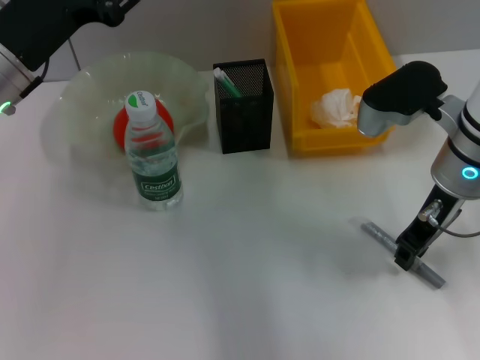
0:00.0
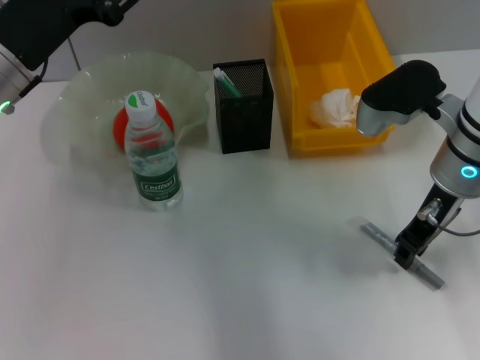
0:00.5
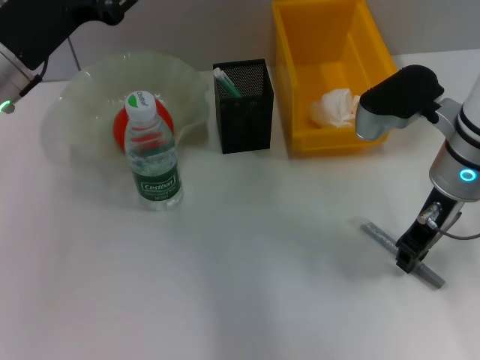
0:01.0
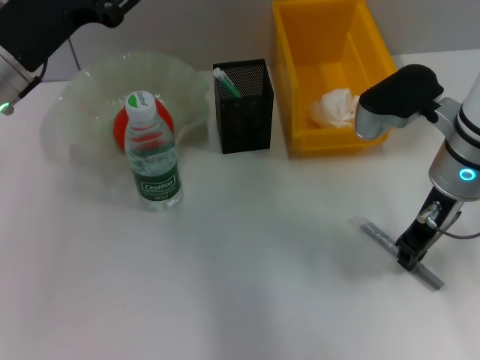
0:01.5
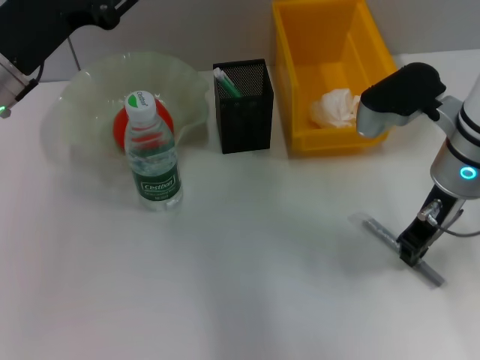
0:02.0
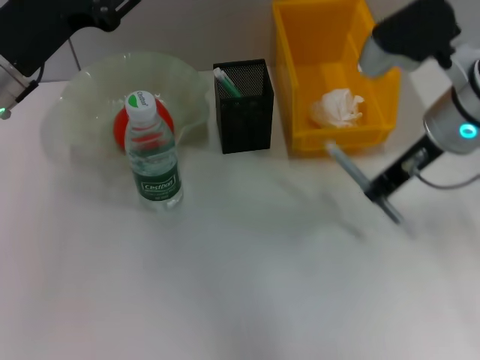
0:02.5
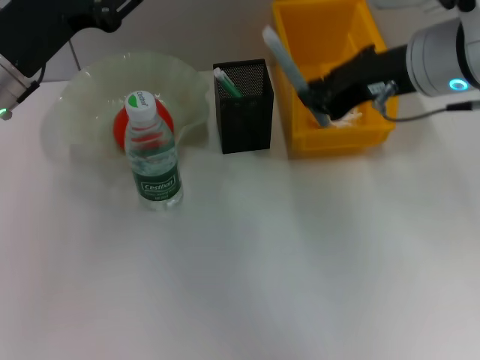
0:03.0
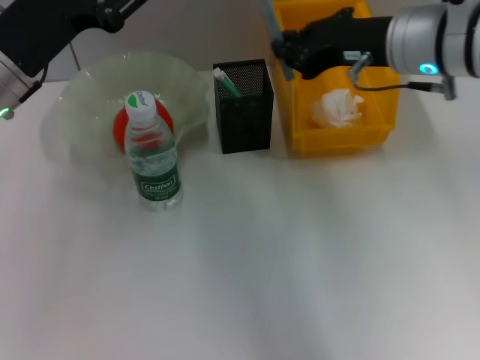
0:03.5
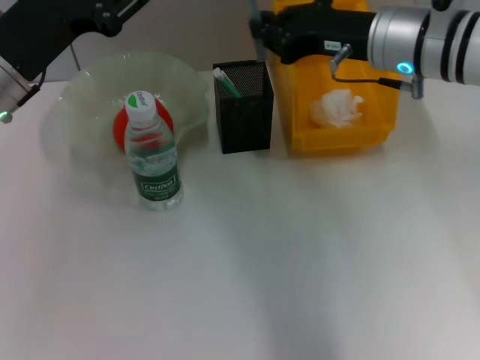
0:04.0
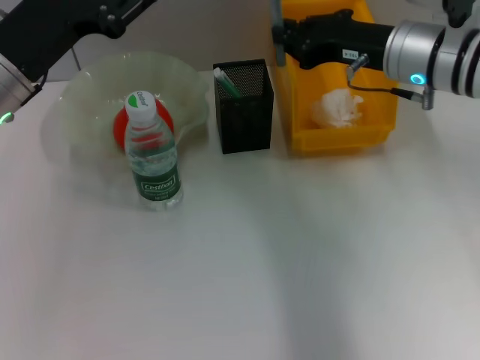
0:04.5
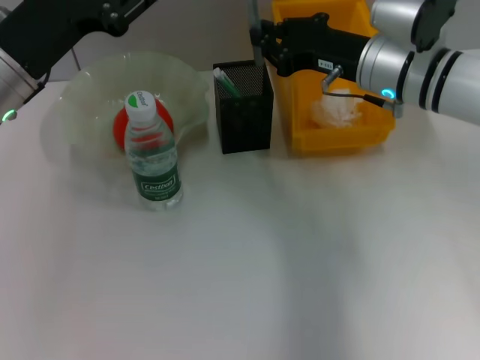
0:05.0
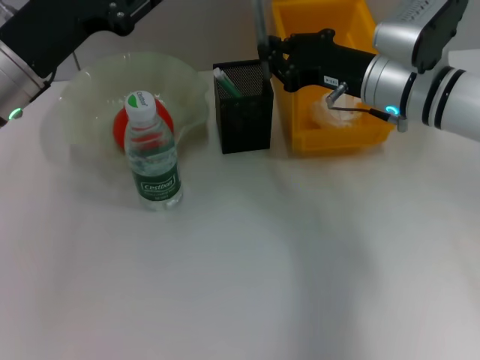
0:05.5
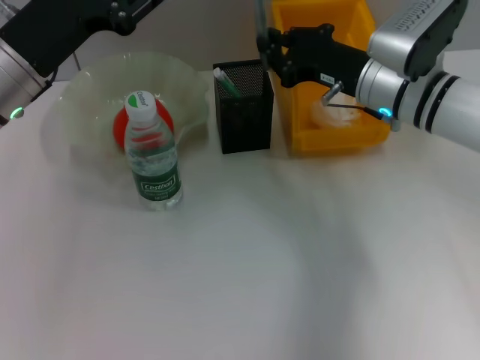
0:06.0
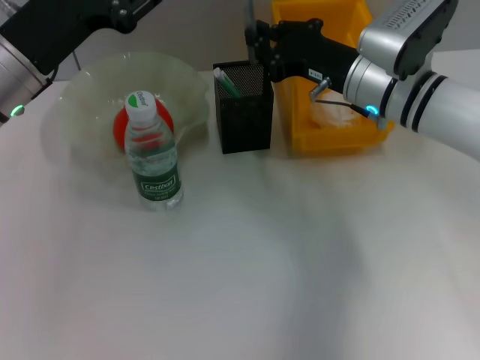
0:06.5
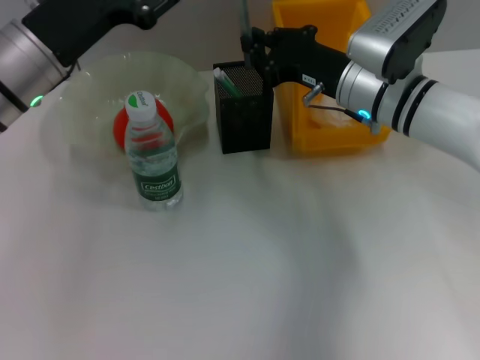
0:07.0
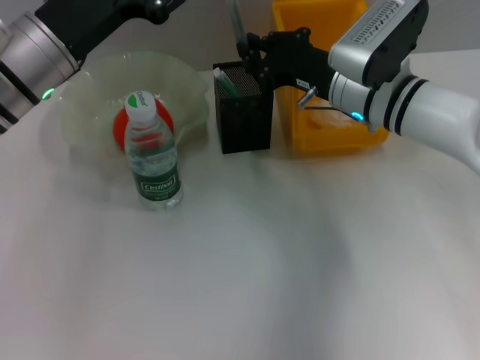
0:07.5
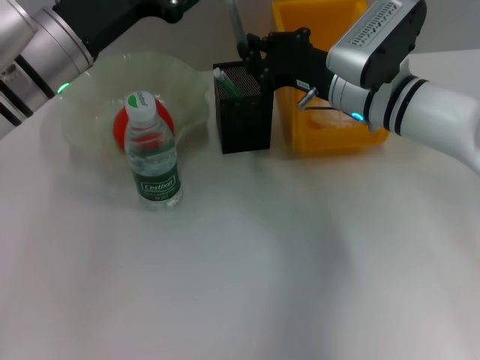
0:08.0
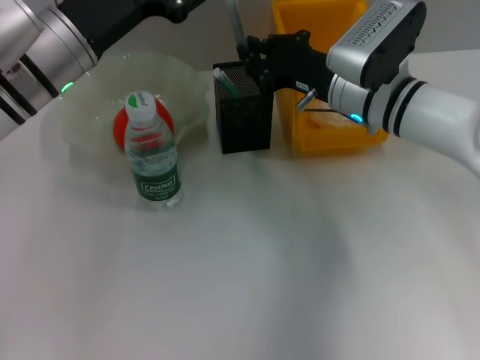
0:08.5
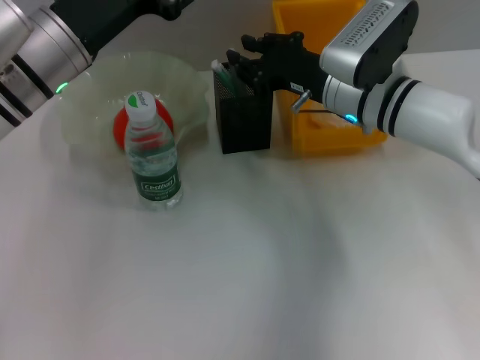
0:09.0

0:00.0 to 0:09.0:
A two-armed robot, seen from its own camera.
0:00.0 to 0:02.0: The two grippers keep their place.
0:02.0 to 0:04.5: The right gripper heads forward, covering approximately 5 cm, and travels upward and back again, approximately 10 cm each way.
0:04.5 to 0:07.0: The right gripper travels downward by roughly 5 cm.
0:07.0 to 0:09.0: The grippers make only small movements.

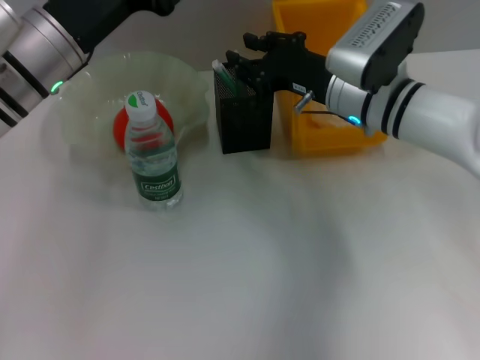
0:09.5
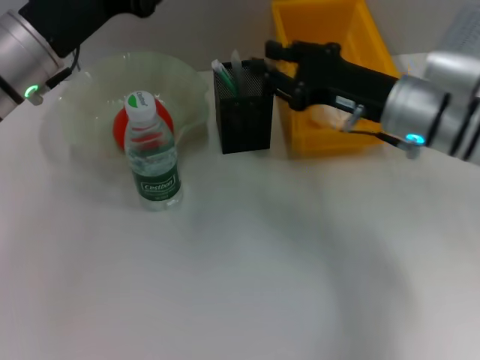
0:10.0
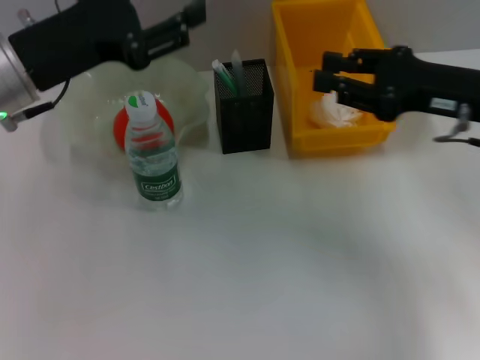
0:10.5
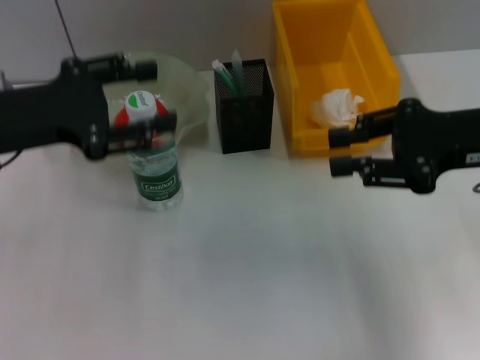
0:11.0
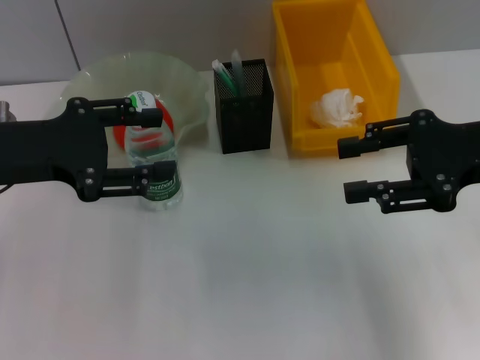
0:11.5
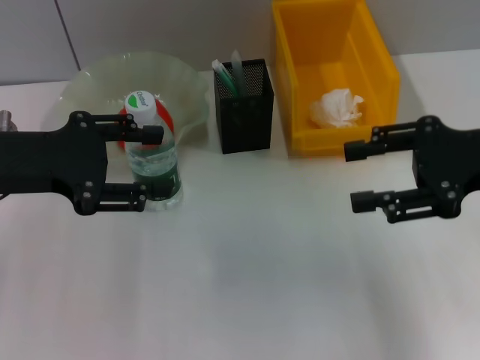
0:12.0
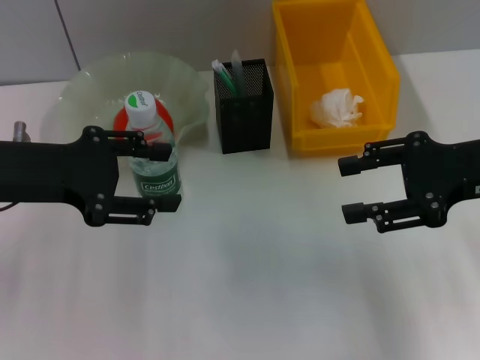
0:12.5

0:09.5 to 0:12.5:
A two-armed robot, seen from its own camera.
0:09.5 to 0:11.0: The right gripper heads to the right, backward and upward, covering approximately 15 cm. Meanwhile the left gripper moves to the left, some 10 cm.
0:11.0 to 0:12.5: The right gripper opens.

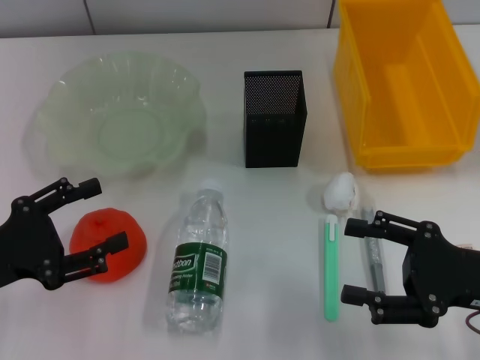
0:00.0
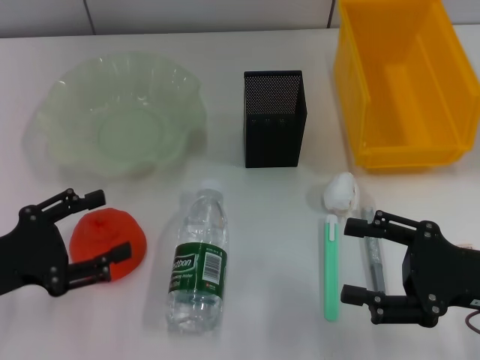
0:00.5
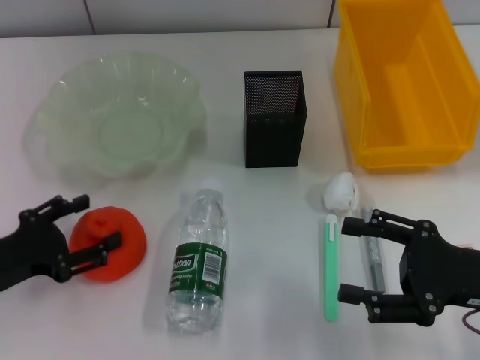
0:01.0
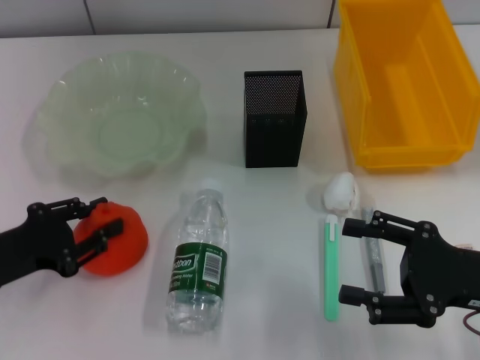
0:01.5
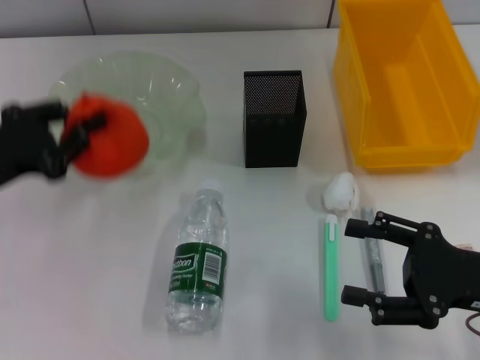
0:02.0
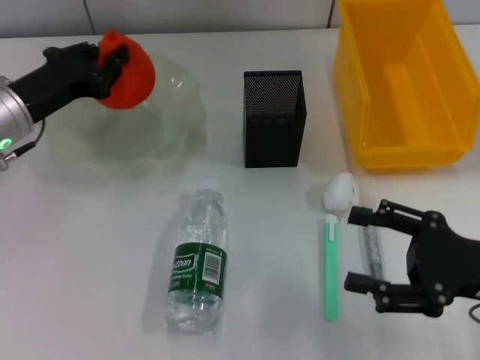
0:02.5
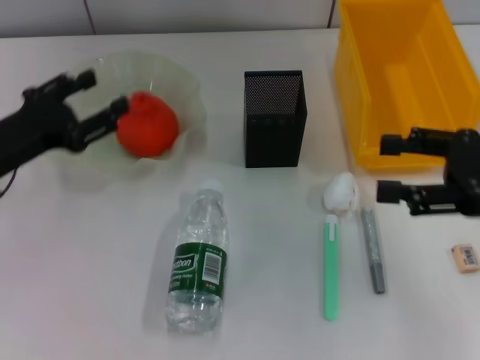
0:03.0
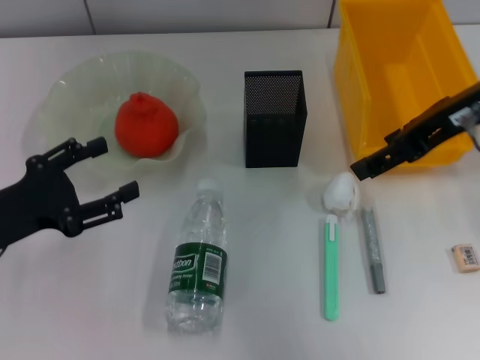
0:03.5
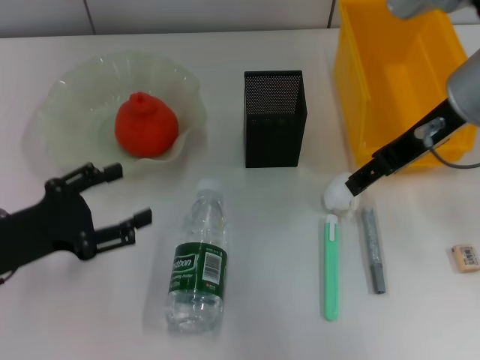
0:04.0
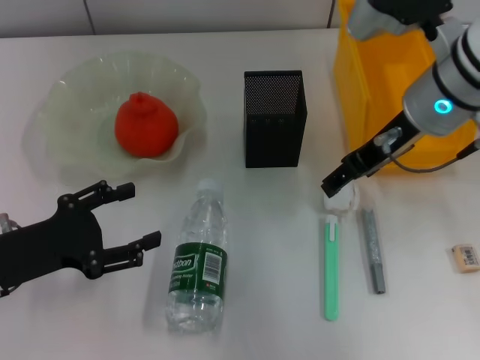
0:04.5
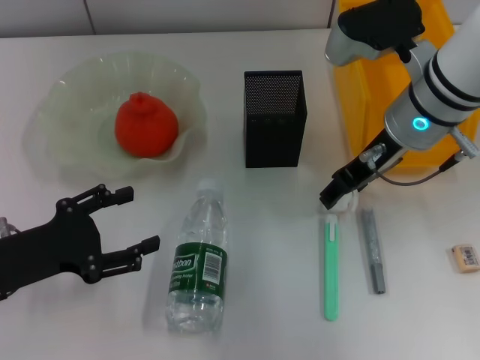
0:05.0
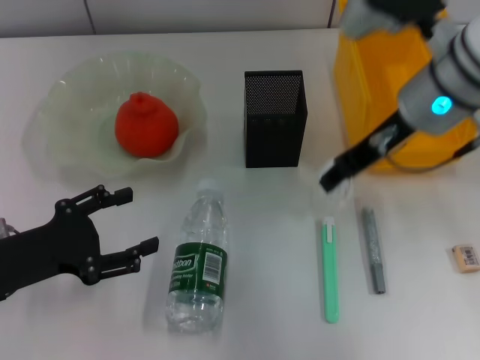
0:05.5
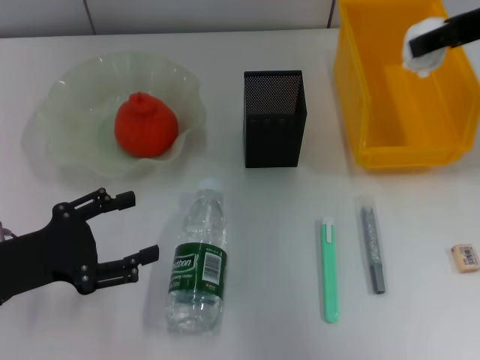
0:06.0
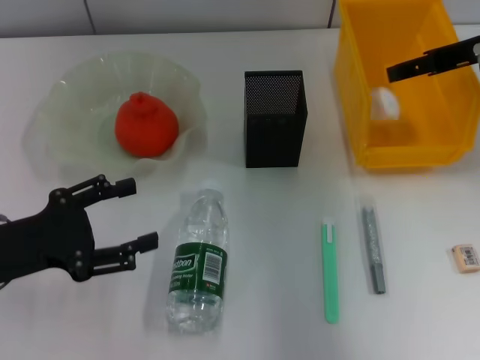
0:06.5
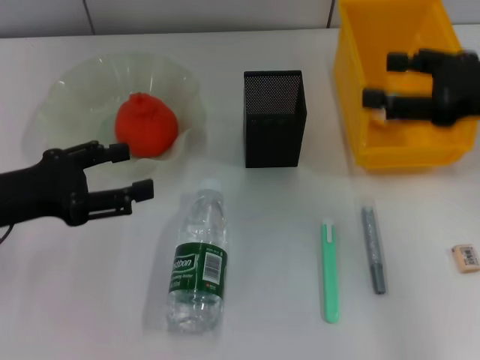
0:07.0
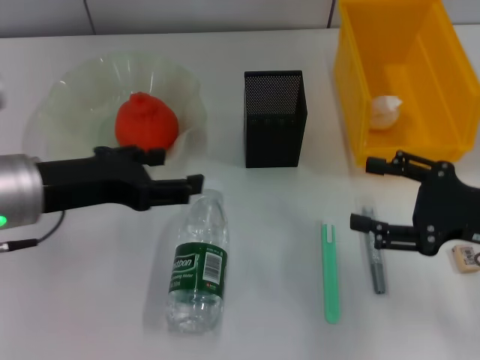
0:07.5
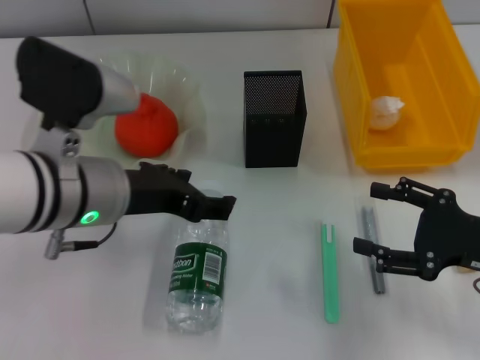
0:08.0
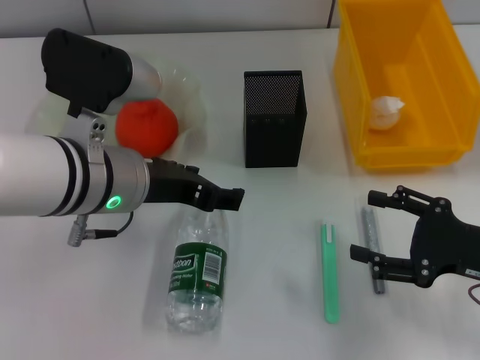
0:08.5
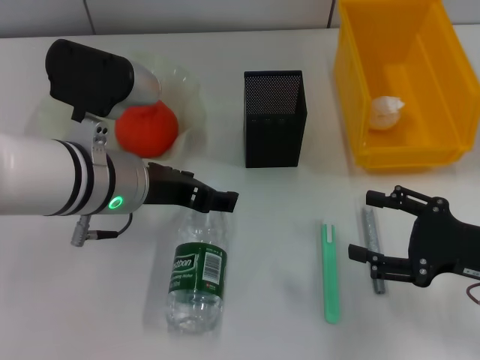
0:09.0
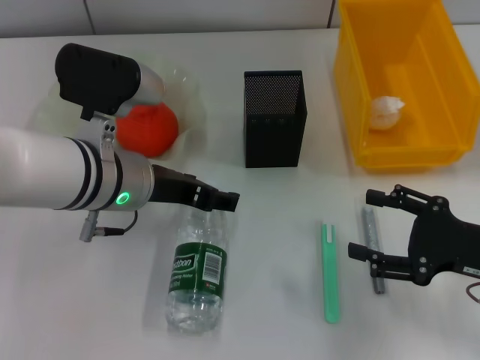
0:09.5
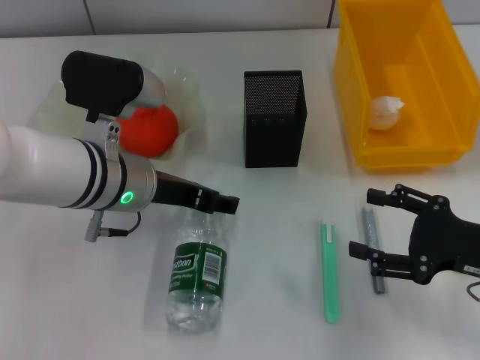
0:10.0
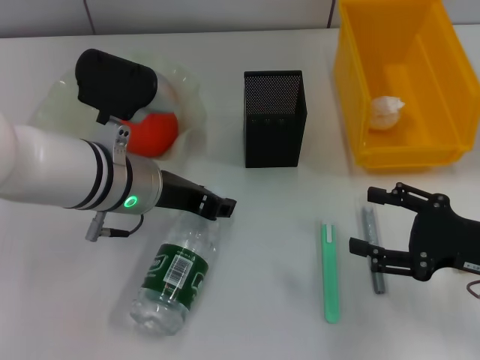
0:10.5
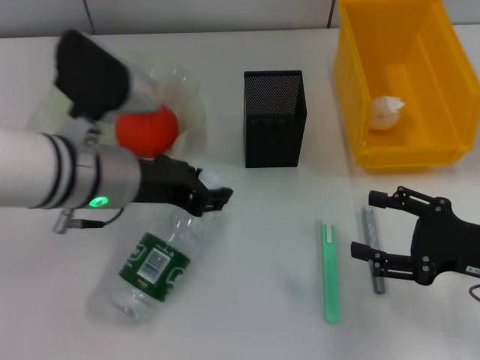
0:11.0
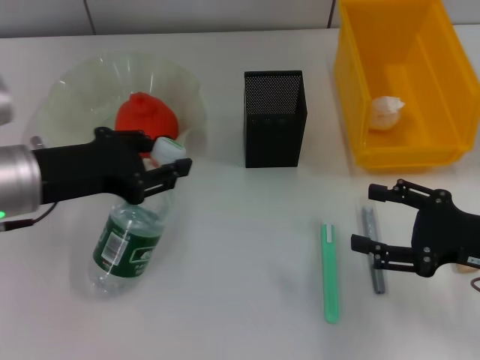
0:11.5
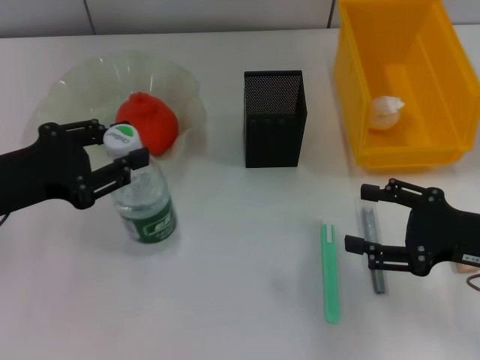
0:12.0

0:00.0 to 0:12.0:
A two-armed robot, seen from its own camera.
Step, 0:00.0 to 0:01.0: Grab the orange with the left hand.
Step, 0:02.0 to 0:02.5: Place the orange into the fruit bowl with the left hand.
Step, 0:03.0 to 0:05.0: Grab the paper ball with the right hand.
Step, 0:05.5 to 0:06.5: Place the paper ball into the trash can with the right hand.
Step, 0:07.0 to 0:10.5: Grab the water bottle with the left hand.
0:00.0 to 0:02.0: The left gripper goes roughly 5 cm forward, and closes.
0:02.0 to 0:04.0: The left gripper moves roughly 10 cm forward and comes back, and opens; the right gripper is displaced upward, forward and to the left by about 20 cm.
0:04.0 to 0:06.0: The right gripper is displaced to the right and upward by some 10 cm, and closes its fingers.
0:06.0 to 0:08.0: The left gripper shifts approximately 15 cm to the right and upward; the right gripper shifts some 25 cm downward and backward, and opens.
0:08.0 to 0:10.0: The left gripper moves some 5 cm.
0:10.0 to 0:12.0: The left gripper is displaced to the left and backward by about 15 cm, and closes.

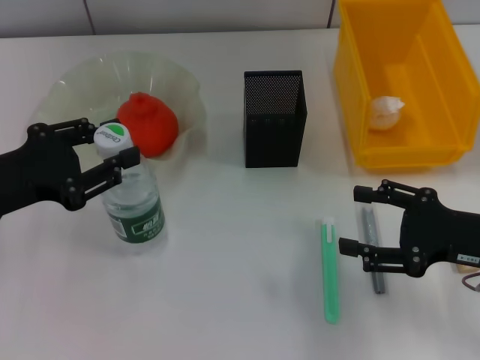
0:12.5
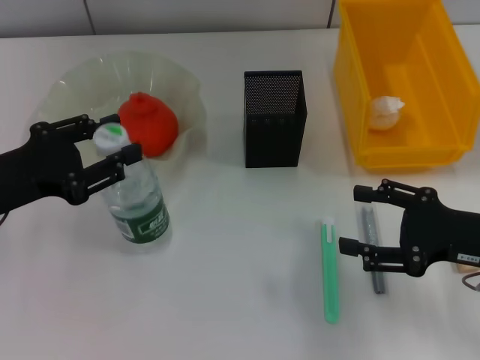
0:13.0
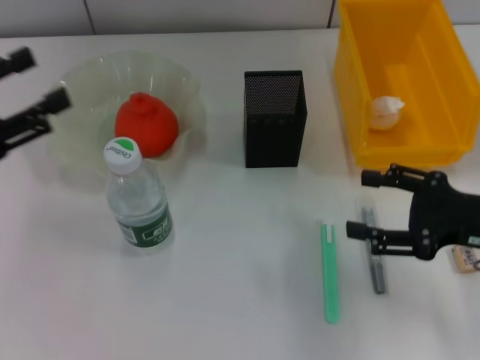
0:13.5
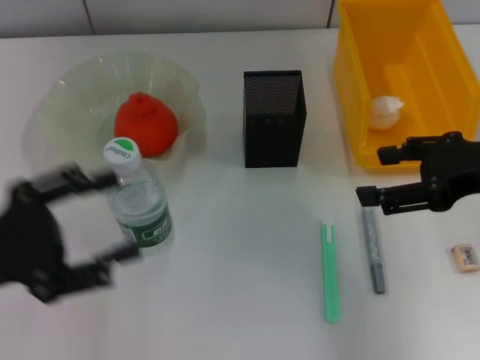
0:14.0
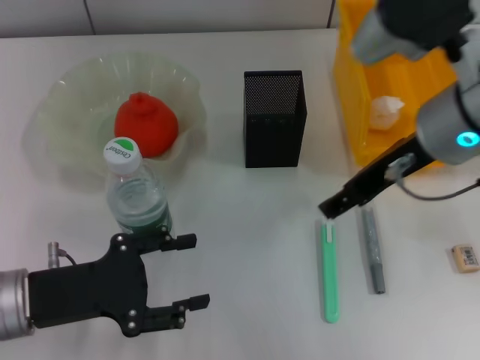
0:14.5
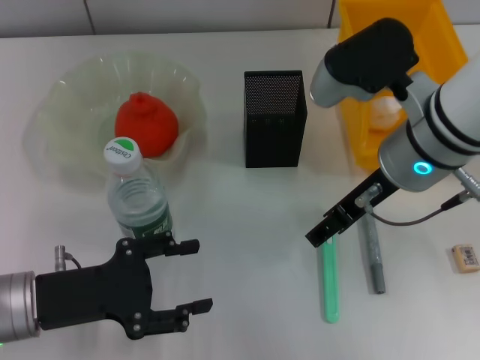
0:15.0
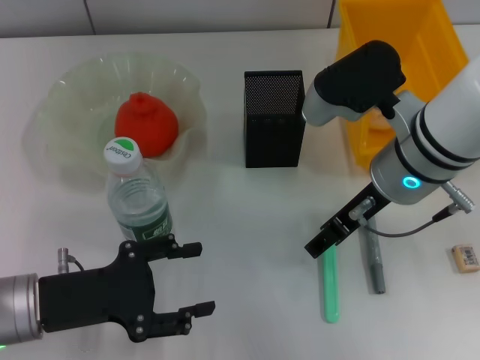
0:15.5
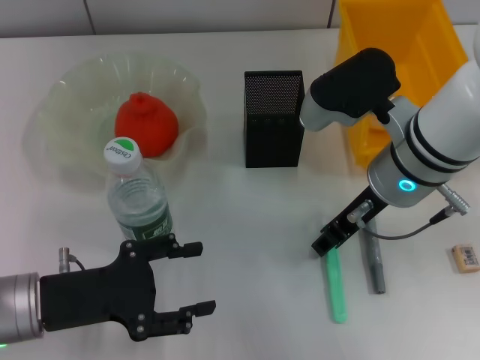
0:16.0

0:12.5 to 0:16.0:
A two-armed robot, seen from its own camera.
0:12.5 to 0:14.5: The right gripper travels to the left, upward and forward by about 20 cm. Meanwhile the left gripper shifts approximately 5 cm downward, and opens its fingers.
0:14.5 to 0:16.0: The right gripper goes approximately 5 cm downward.
